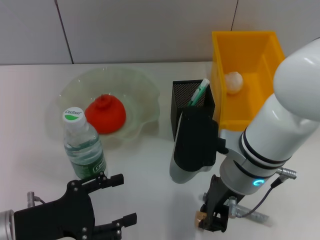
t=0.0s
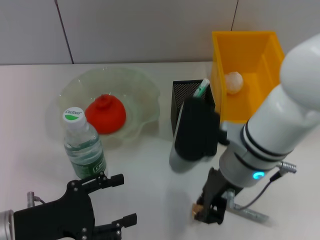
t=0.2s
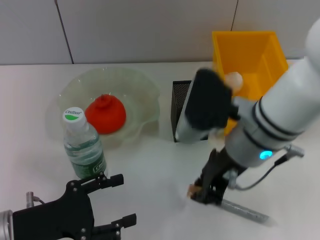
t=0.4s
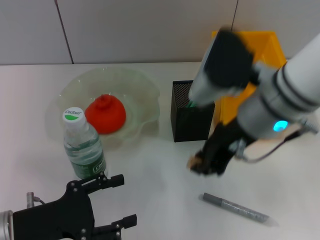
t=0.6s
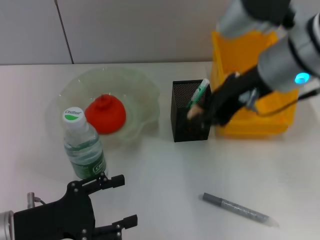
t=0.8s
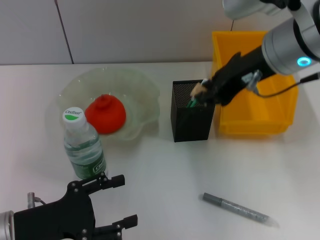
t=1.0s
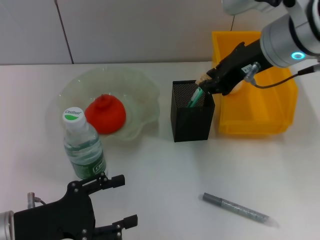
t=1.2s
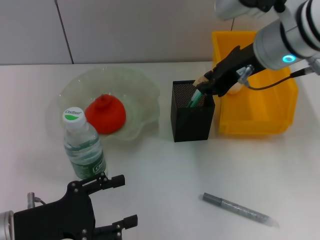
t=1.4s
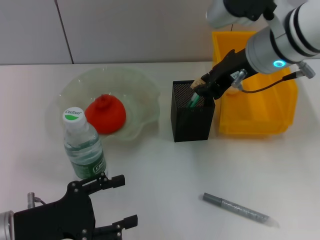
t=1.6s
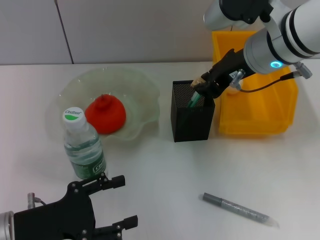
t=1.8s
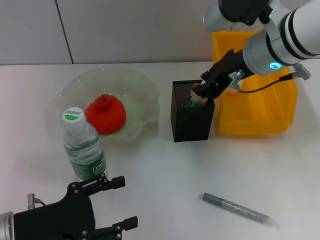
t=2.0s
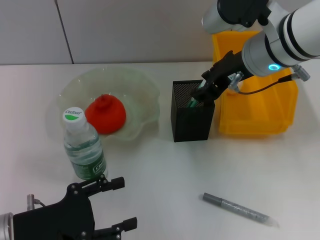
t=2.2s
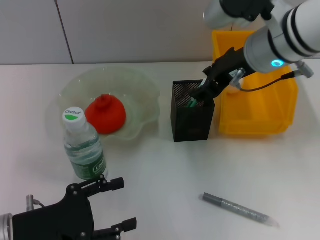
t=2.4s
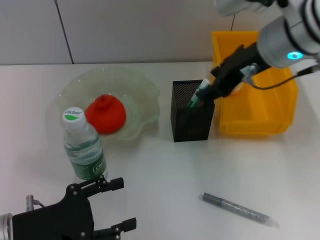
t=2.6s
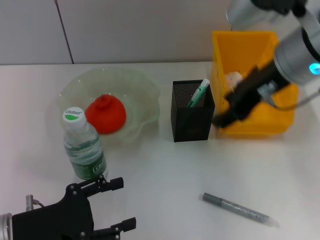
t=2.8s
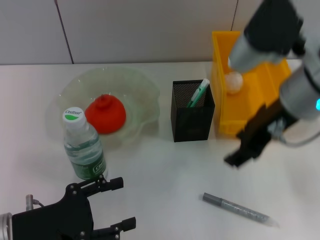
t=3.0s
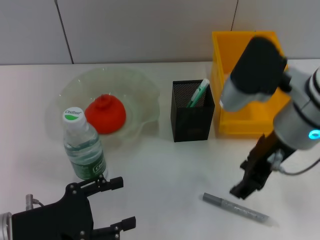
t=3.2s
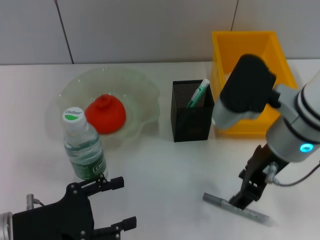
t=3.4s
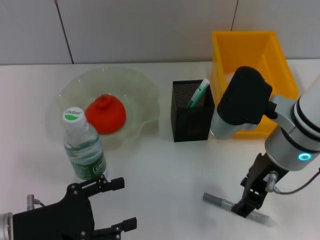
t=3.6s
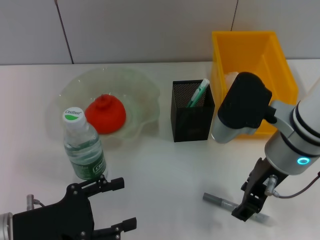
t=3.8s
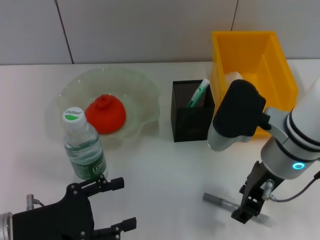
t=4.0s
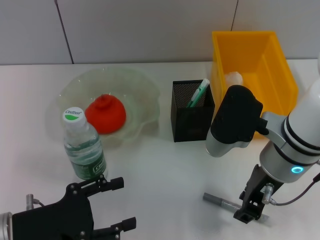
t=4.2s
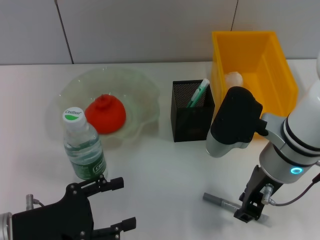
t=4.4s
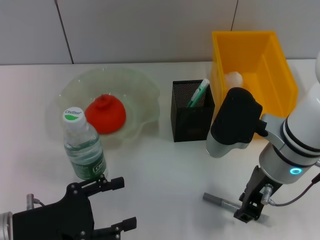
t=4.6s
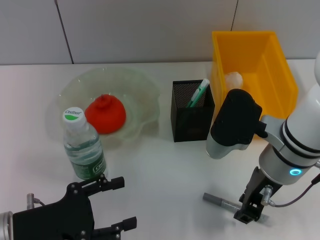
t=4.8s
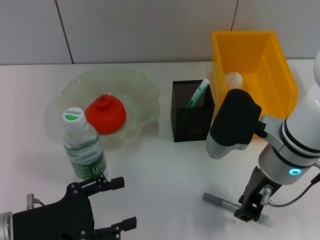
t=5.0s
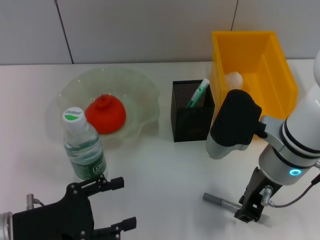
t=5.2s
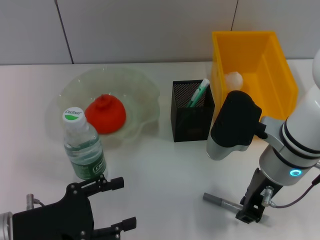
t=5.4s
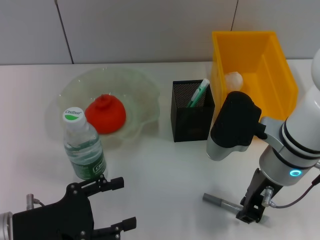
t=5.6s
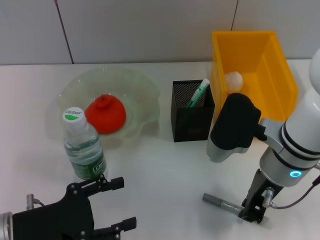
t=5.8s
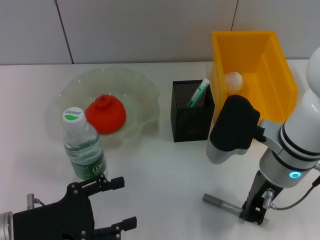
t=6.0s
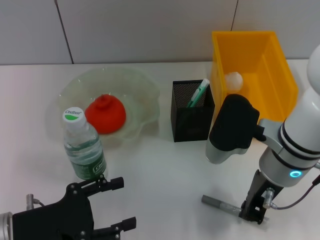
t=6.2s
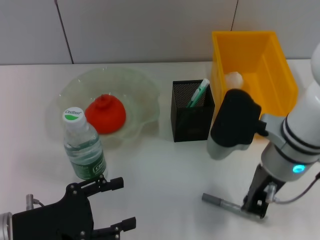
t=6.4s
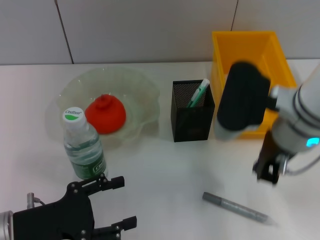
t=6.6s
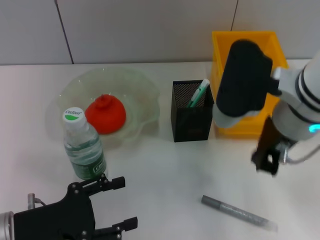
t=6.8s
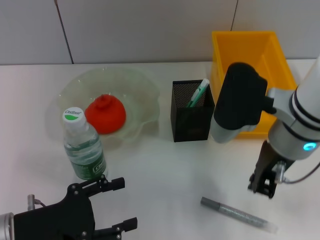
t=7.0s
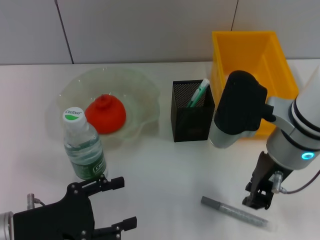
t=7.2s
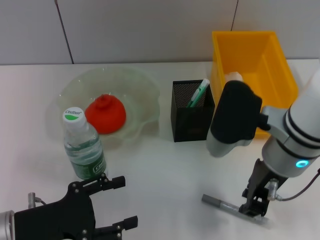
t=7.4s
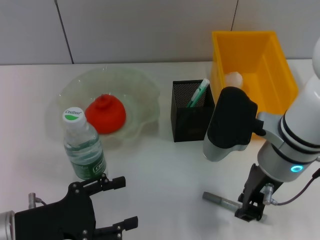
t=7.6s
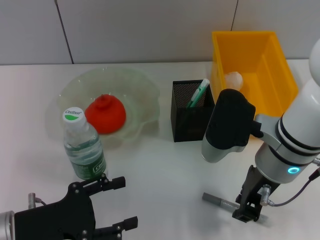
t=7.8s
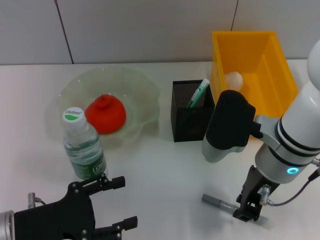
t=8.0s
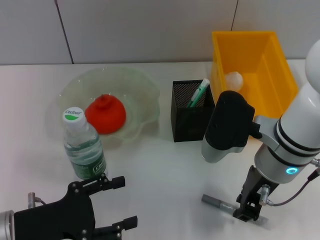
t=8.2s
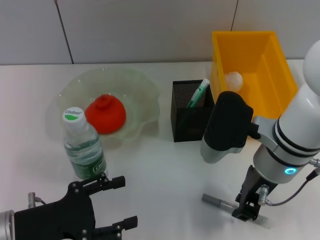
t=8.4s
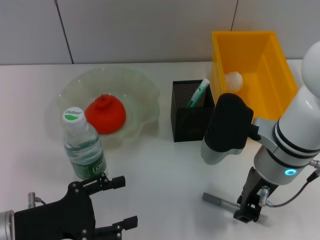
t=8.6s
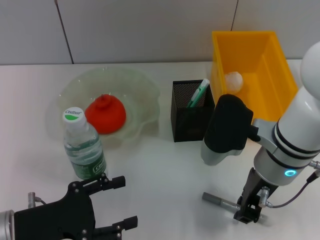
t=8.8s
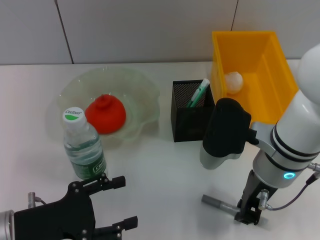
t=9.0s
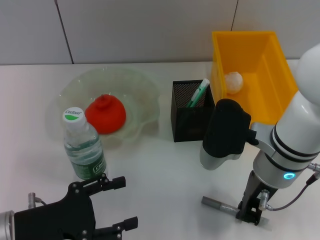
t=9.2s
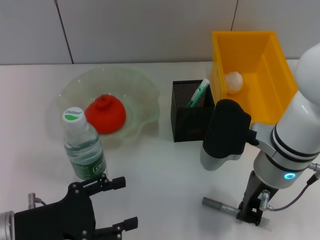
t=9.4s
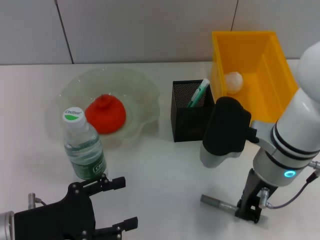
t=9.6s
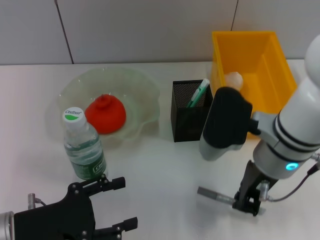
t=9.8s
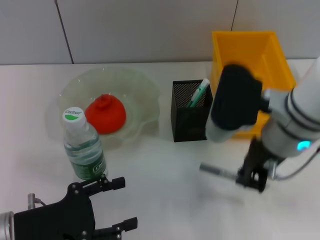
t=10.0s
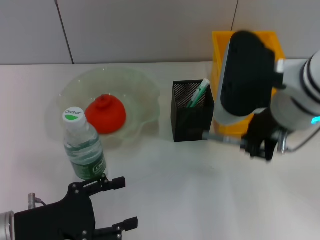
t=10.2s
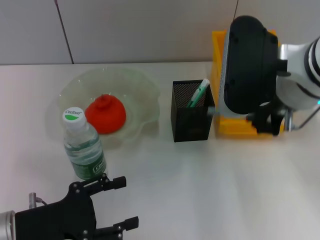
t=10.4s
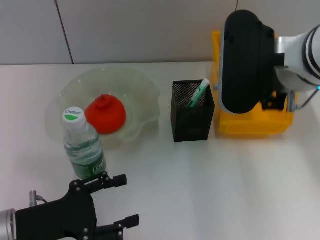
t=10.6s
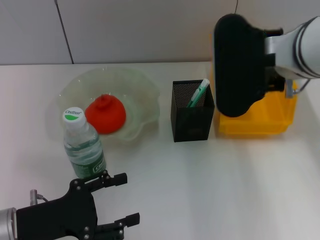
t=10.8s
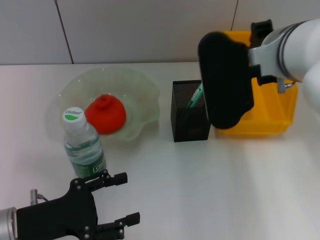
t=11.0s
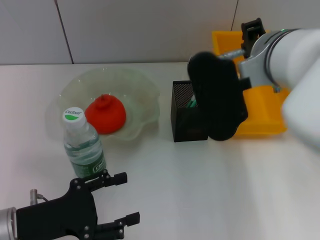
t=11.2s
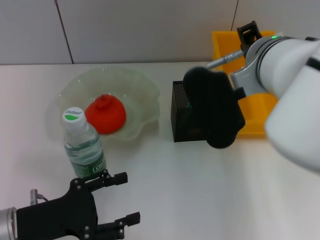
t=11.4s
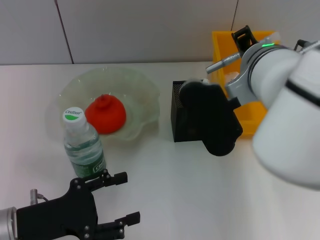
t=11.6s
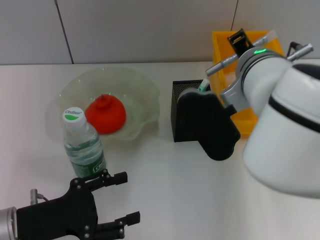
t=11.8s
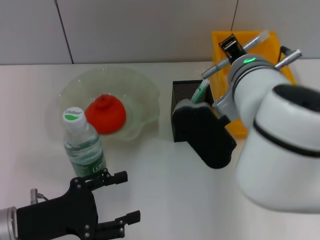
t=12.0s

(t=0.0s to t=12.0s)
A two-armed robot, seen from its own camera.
Step, t=0.2s - t=2.2s: Put the eraser into the pen holder with the right hand.
Step, t=2.6s - t=9.4s: Grab the gray glue with the right hand.
t=0.0s - t=1.6s: The right gripper is displaced upward and forward by approximately 15 cm.
t=1.6s - t=3.0s: The right gripper shifts roughly 5 cm backward, and opens its fingers.
t=3.0s - t=4.4s: The right gripper heads downward, covering approximately 10 cm.
t=4.4s - t=6.0s: Neither gripper changes place.
t=7.6s - t=9.0s: The grippers move only a little.
t=9.0s - t=10.4s: The right gripper shifts roughly 10 cm upward.
t=10.4s - t=12.0s: The right gripper heads downward and to the left, covering some 10 cm.

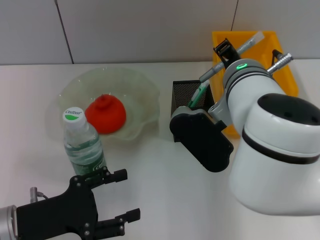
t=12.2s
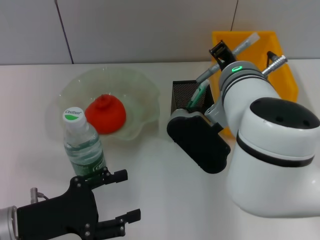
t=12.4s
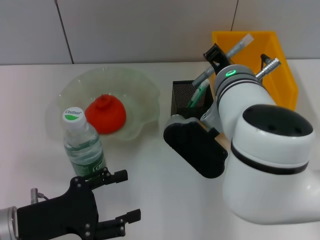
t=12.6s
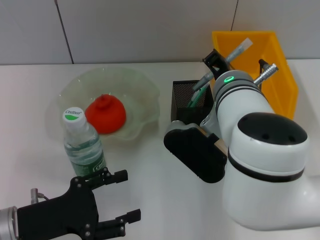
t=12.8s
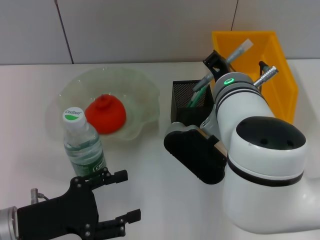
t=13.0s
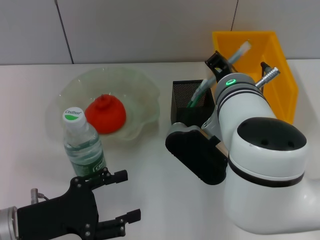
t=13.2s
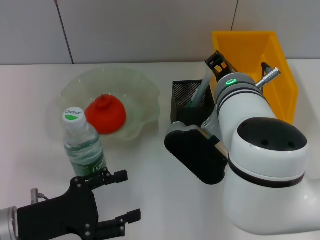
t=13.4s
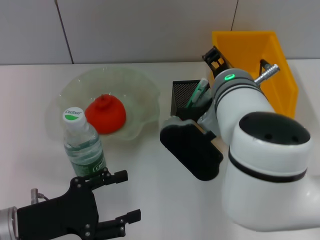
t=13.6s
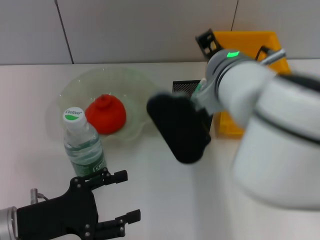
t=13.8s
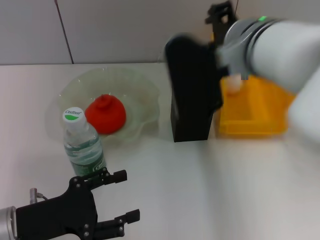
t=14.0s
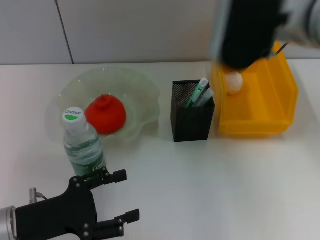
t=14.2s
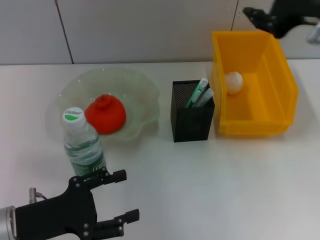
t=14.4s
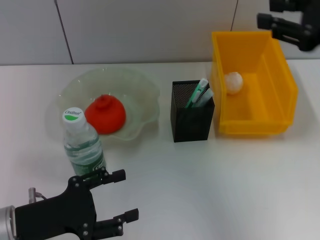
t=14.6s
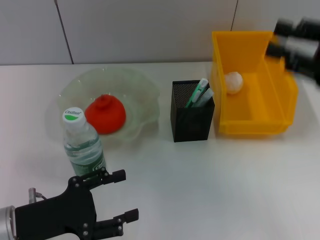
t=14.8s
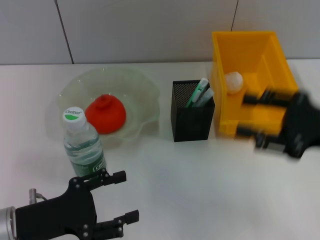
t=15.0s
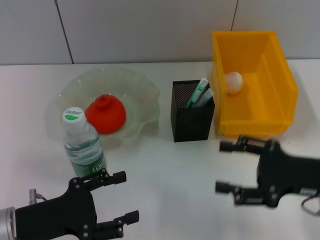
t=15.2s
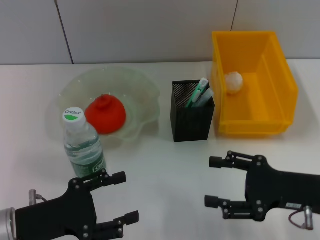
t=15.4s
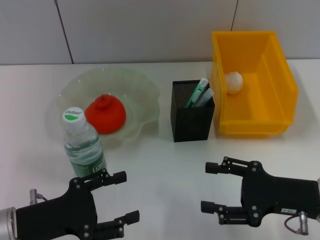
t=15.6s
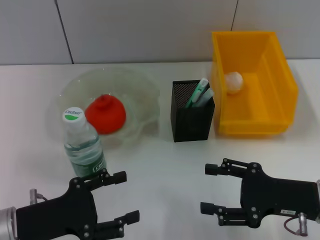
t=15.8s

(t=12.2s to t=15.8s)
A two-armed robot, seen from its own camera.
t=12.2s - t=14.0s: The right gripper moves upward, roughly 5 cm, and opens.
t=14.0s - t=15.8s: The right gripper is displaced downward and to the right by about 25 cm, and opens up.

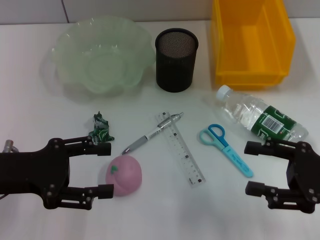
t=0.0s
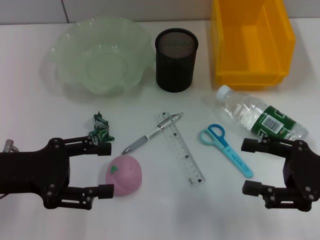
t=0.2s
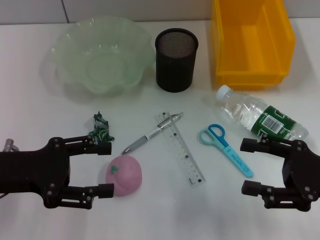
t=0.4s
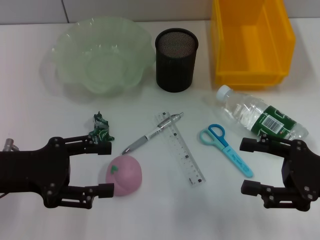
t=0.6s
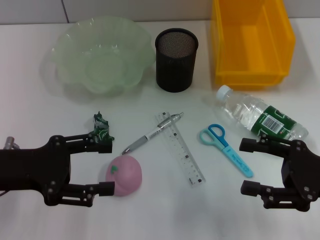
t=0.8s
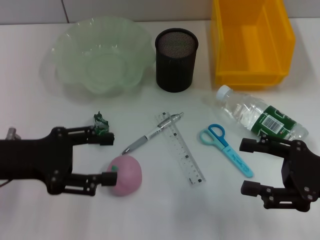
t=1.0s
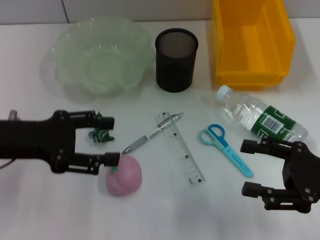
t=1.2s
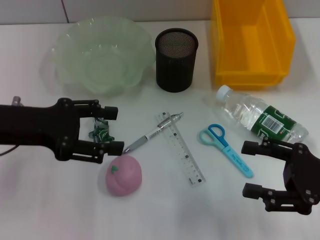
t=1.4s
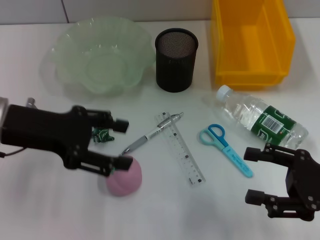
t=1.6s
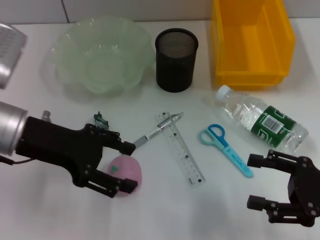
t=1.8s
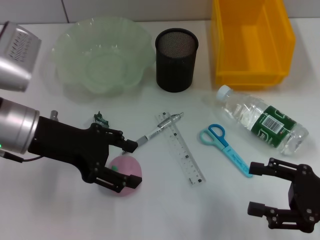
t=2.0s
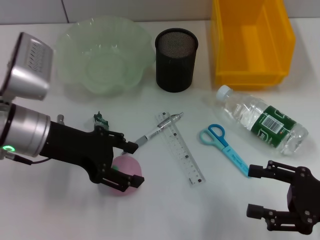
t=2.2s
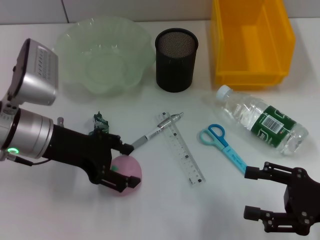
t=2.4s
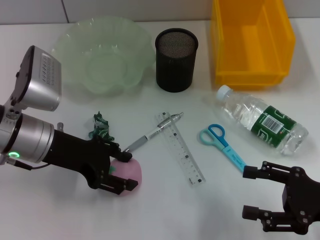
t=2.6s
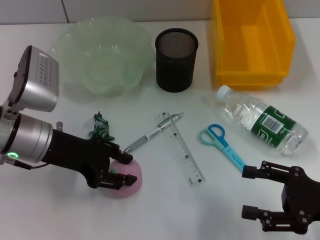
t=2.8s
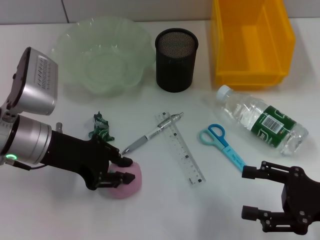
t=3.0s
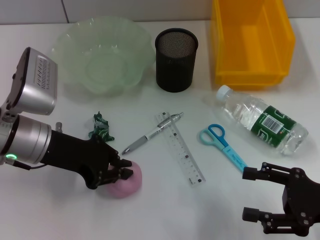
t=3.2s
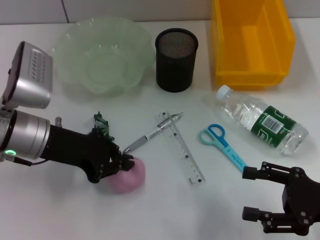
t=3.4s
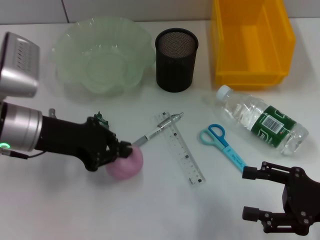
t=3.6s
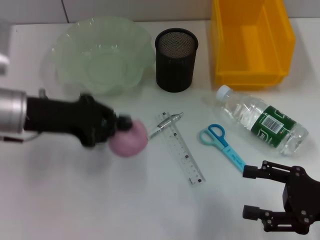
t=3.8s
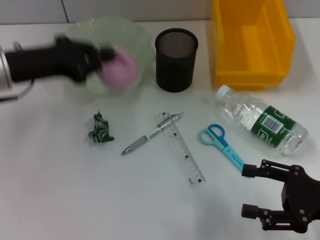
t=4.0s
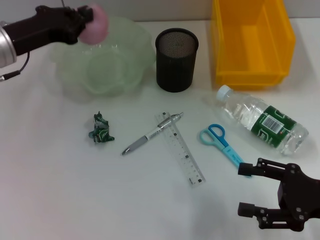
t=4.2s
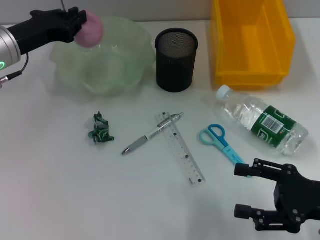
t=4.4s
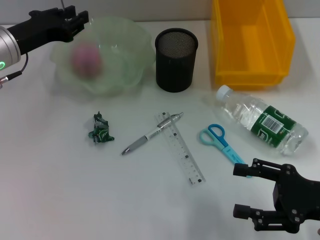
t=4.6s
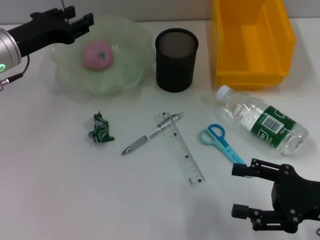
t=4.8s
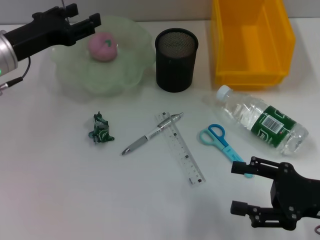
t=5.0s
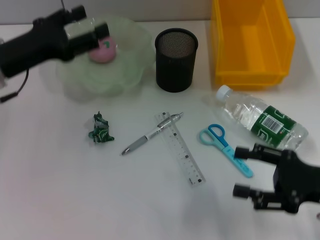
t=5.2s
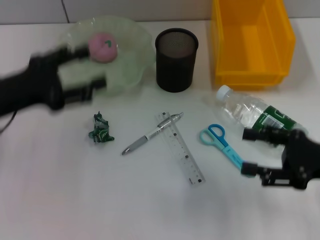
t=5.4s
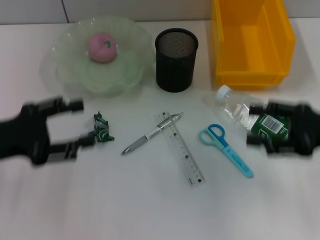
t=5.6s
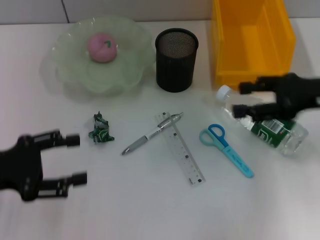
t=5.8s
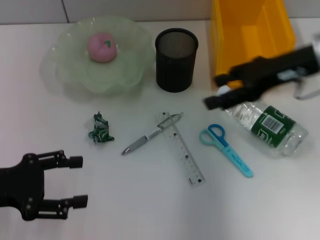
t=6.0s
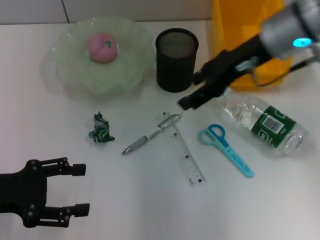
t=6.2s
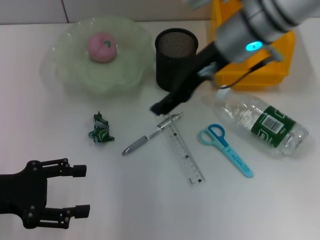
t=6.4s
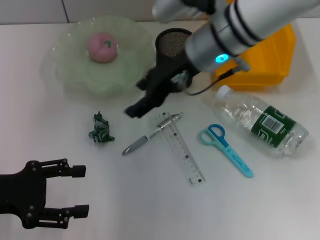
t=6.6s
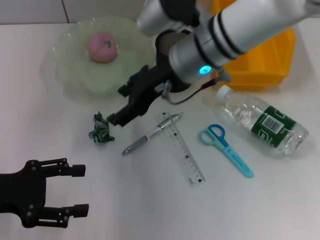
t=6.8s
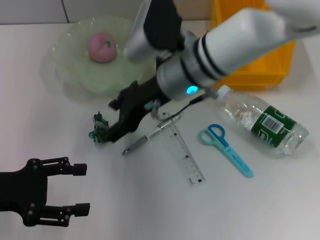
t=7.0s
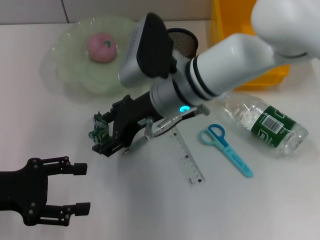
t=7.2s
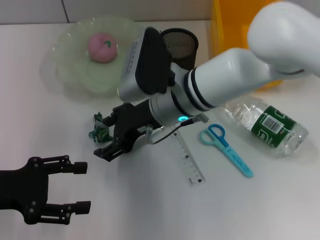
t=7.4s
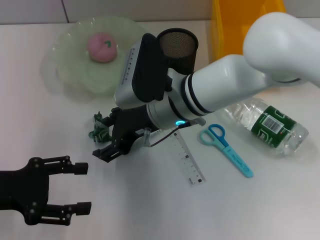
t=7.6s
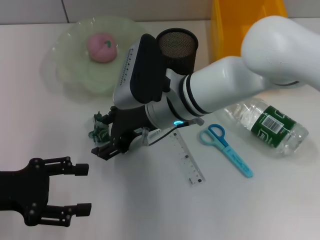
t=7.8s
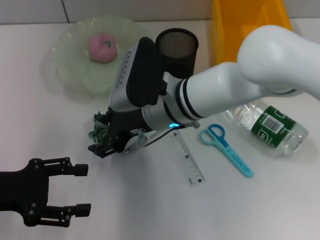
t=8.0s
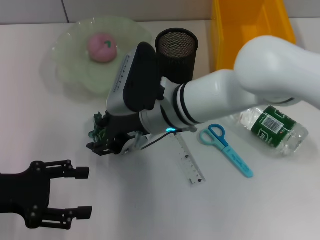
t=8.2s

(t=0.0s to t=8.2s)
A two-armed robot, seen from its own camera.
Step, t=0.0s - t=3.2s: Grab the peach with the left hand.
Step, t=3.4s - t=5.0s: Place the peach into the fruit bowl with the left hand.
t=0.0s - t=1.6s: The left gripper is displaced forward by approximately 5 cm.
t=1.6s - t=3.2s: The left gripper shifts about 5 cm downward, and closes.
t=3.2s - t=5.0s: The left gripper heads forward, covering approximately 5 cm.
t=5.0s - t=6.6s: The right gripper shifts approximately 30 cm to the left, forward and upward, while the left gripper goes roughly 15 cm backward, and opens up.
t=6.6s - t=8.2s: The right gripper goes approximately 10 cm downward, to the left and backward.
